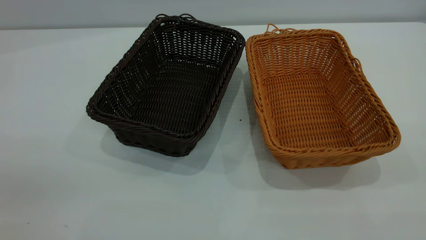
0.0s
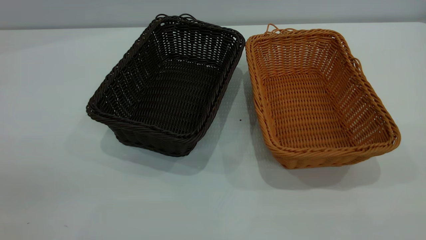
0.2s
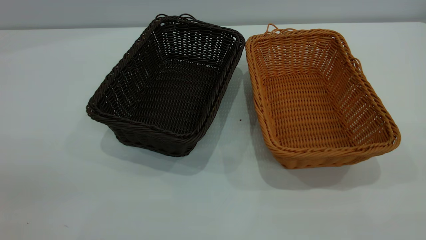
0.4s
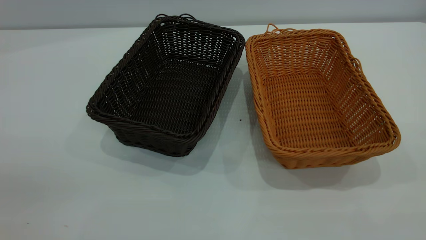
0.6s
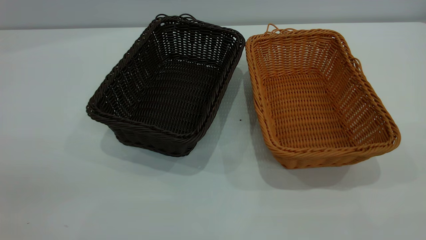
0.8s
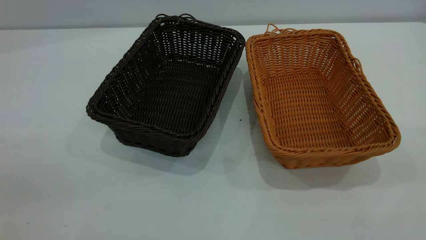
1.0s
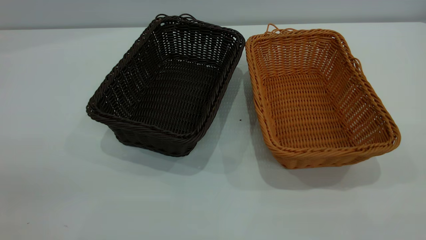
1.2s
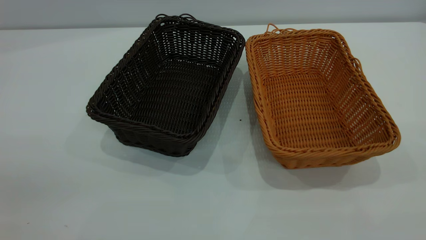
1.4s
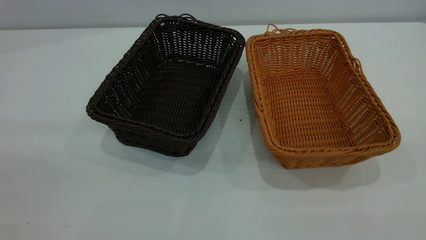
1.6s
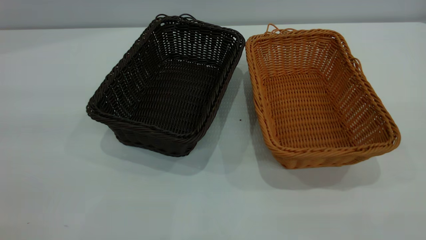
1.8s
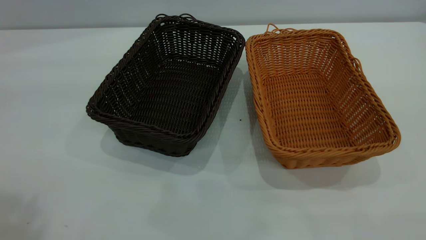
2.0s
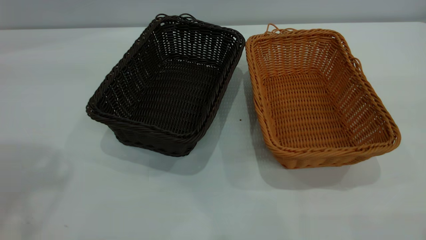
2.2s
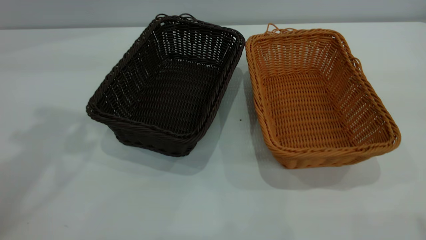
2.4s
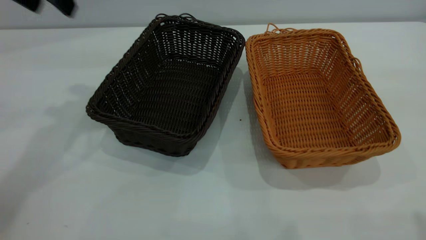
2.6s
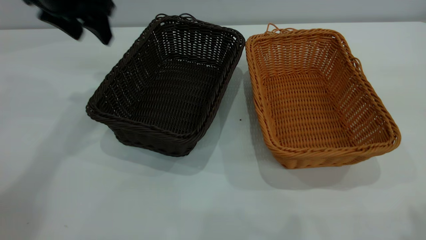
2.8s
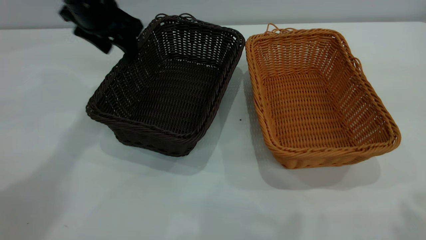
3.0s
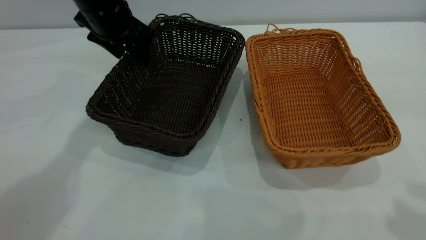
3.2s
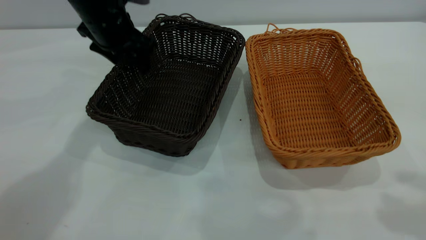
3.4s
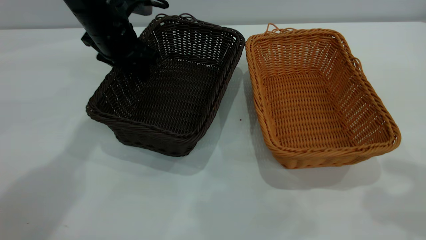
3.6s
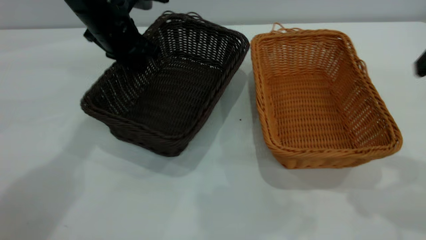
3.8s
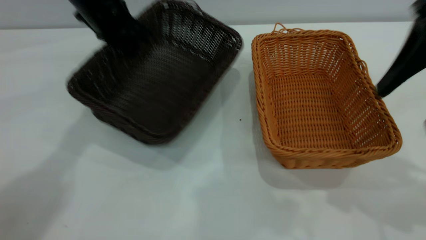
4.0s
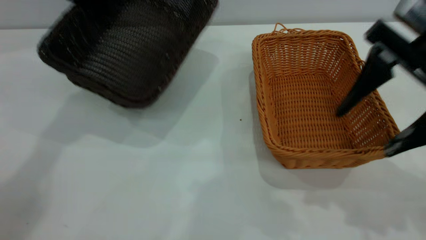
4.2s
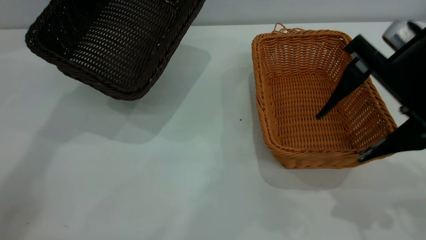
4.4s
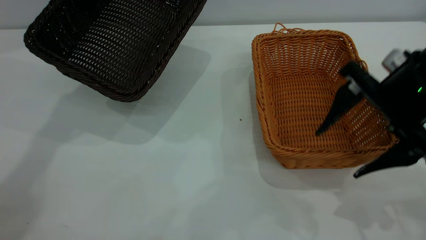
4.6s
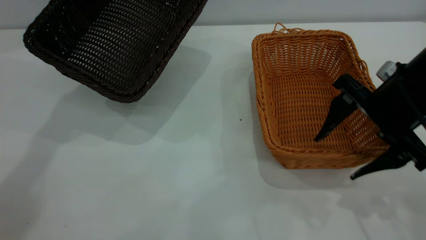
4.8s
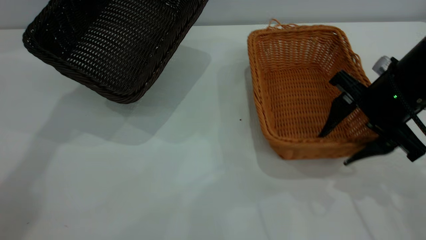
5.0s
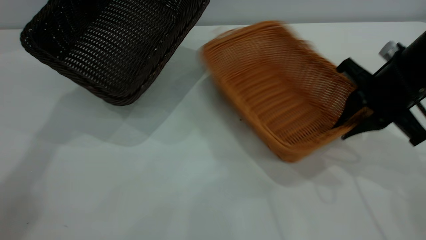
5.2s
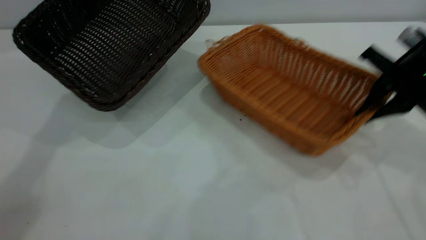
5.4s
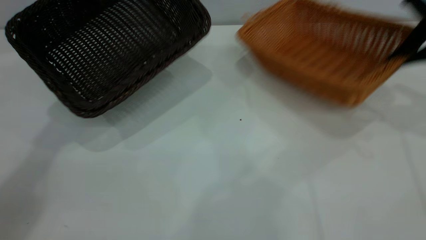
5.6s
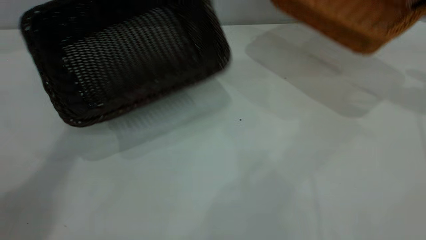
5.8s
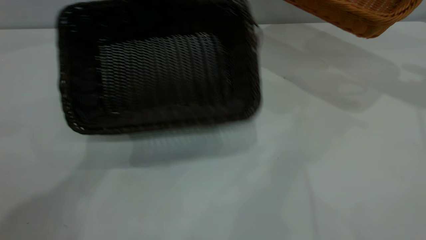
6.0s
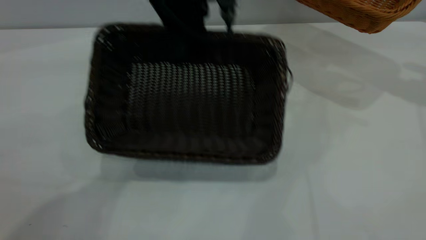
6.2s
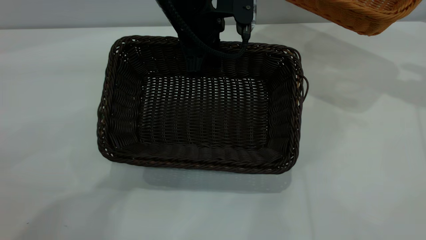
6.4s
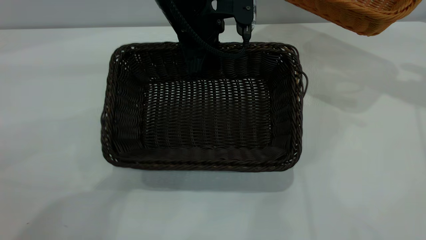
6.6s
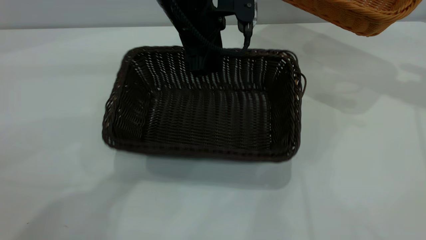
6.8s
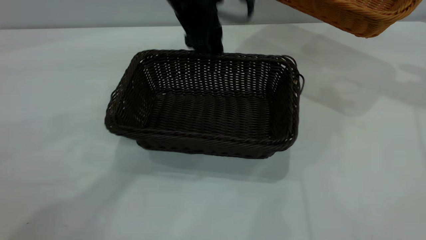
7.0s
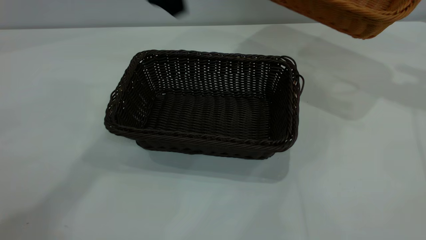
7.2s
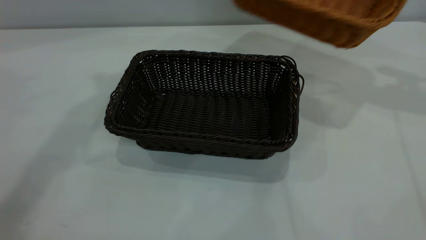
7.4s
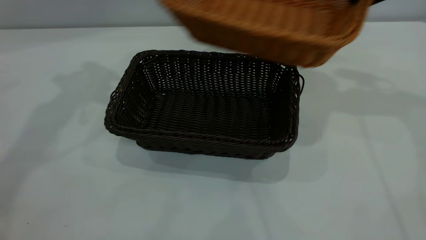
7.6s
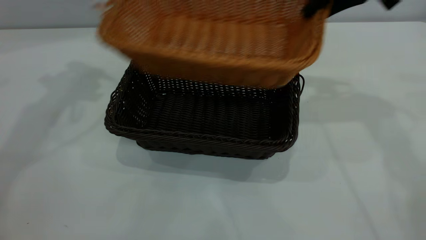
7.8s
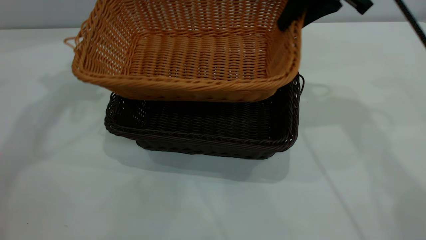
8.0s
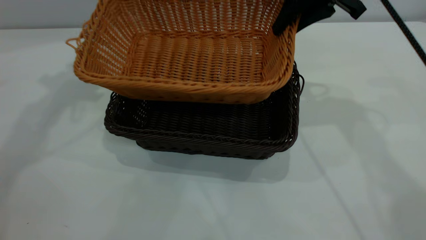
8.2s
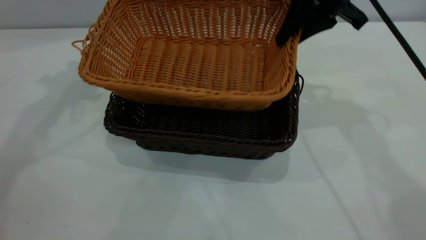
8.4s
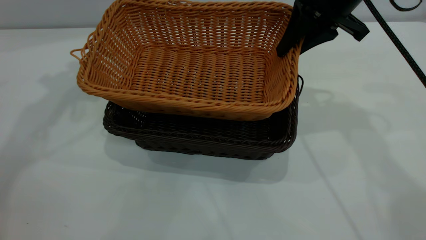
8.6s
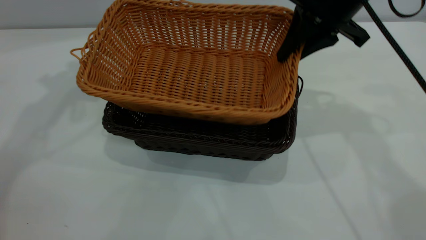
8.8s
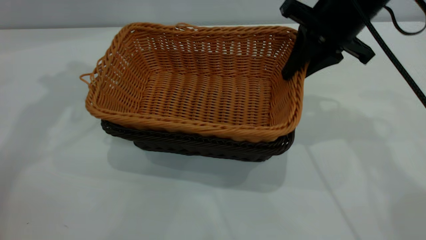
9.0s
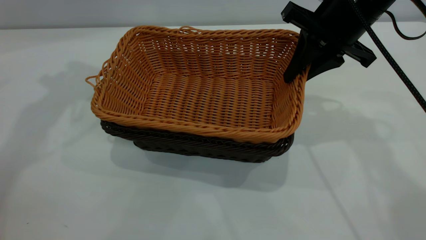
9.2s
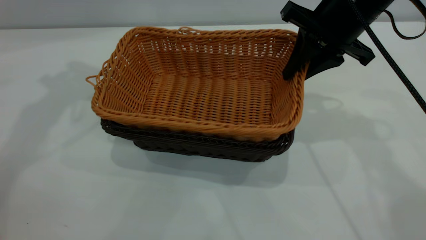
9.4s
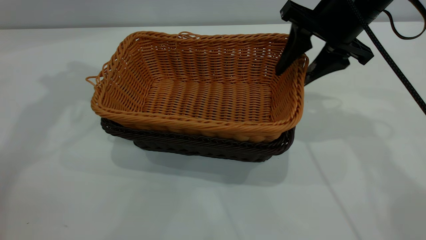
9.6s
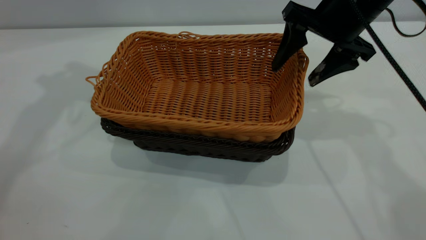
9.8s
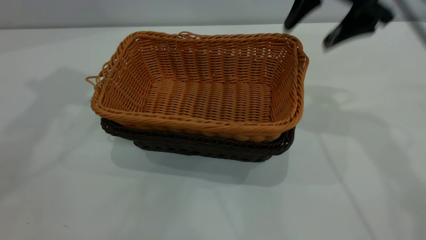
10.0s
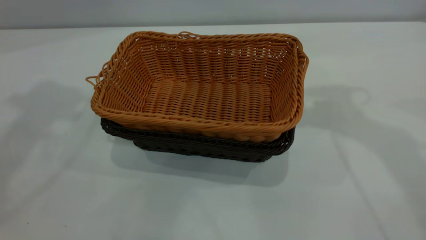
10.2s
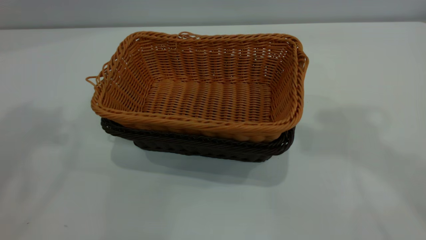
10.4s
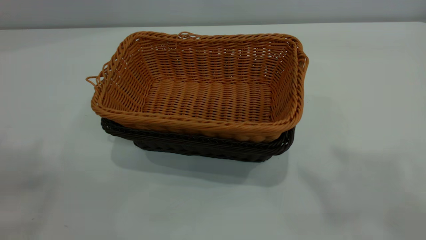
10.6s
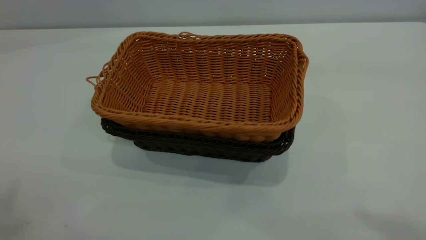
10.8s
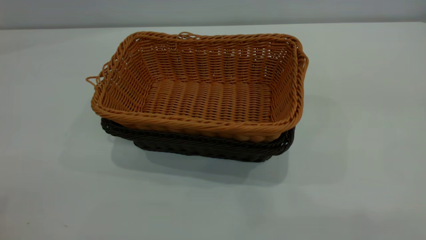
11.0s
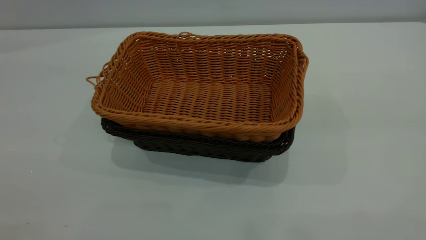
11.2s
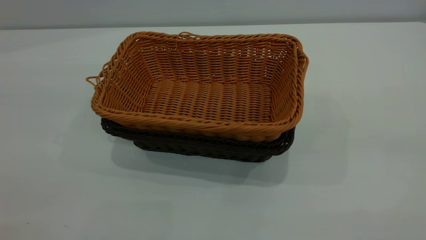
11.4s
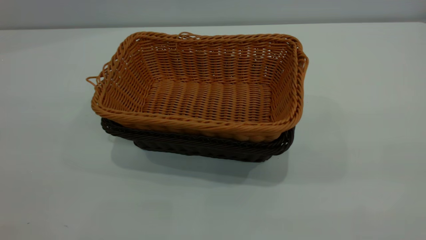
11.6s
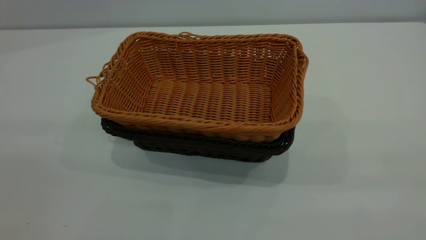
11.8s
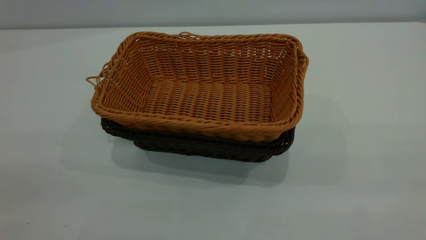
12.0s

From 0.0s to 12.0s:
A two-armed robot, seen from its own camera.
Task of the whole recording: the left gripper grasp the black basket and place it in the center of the table, the right gripper grasp the brown basket and place it inside the black one.
Step, from 0.0s to 5.6s: Pick up the light basket with the right gripper.
Step, from 5.8s to 7.0s: Move the dark basket to the center of view.
Step, from 7.2s to 9.8s: Place the light basket on the dark basket.
From 1.6s to 3.0s: The left gripper shifts roughly 50 cm forward and downward.
From 3.0s to 4.4s: The left gripper moves upward and to the left, some 10 cm, and closes; the right gripper travels downward and forward by approximately 20 cm.
From 4.4s to 6.0s: The right gripper travels forward, to the right and upward by roughly 25 cm, and closes; the left gripper shifts roughly 15 cm to the right.
From 6.0s to 7.6s: The right gripper goes approximately 15 cm to the left; the left gripper moves to the left and upward, some 20 cm, and opens up.
From 7.6s to 9.0s: The right gripper moves to the left and downward, roughly 10 cm.
From 9.0s to 10.4s: The right gripper goes about 25 cm upward, and opens up, while the left gripper goes about 25 cm upward and backward.

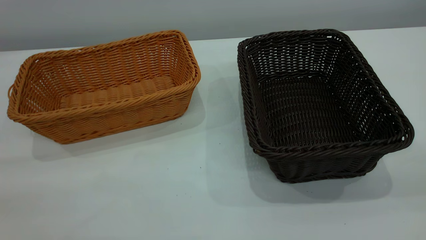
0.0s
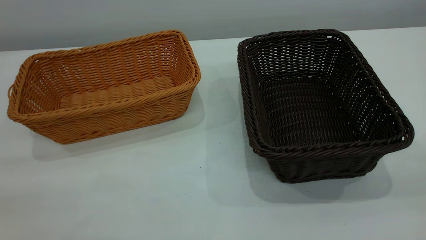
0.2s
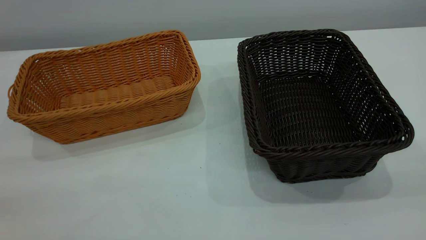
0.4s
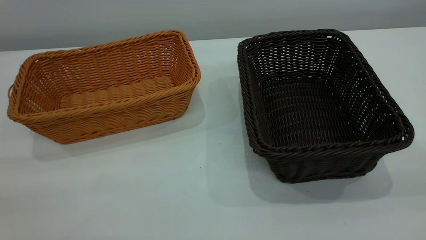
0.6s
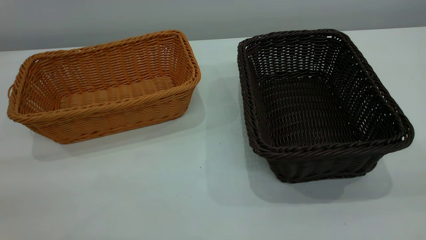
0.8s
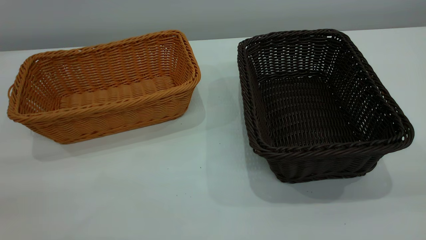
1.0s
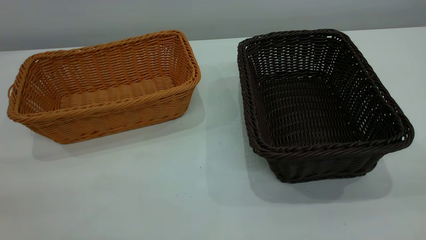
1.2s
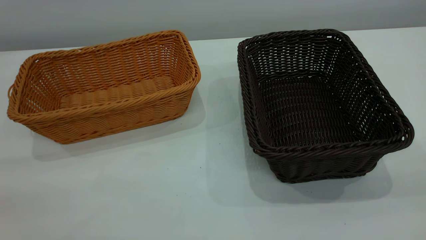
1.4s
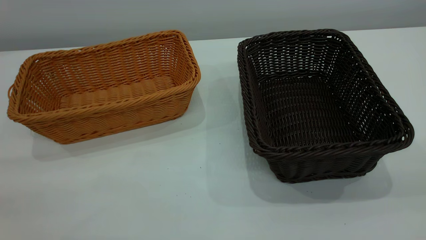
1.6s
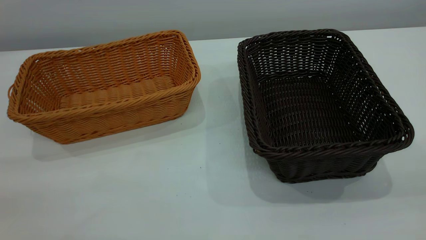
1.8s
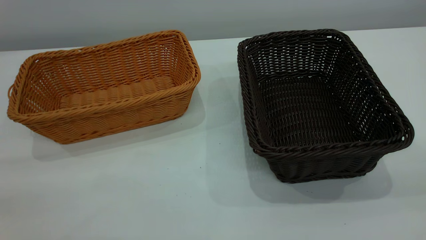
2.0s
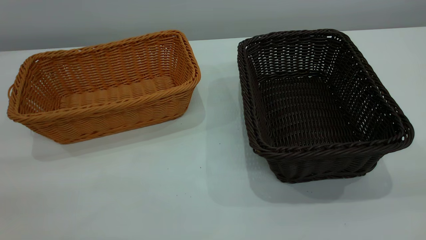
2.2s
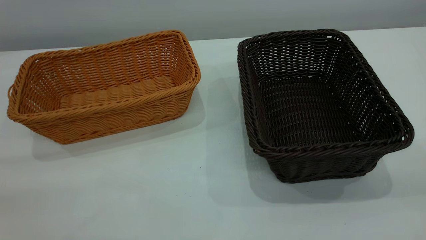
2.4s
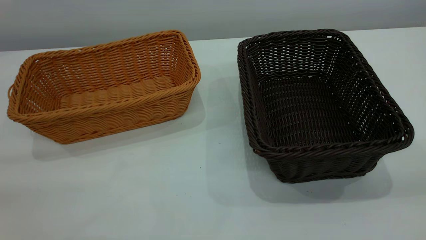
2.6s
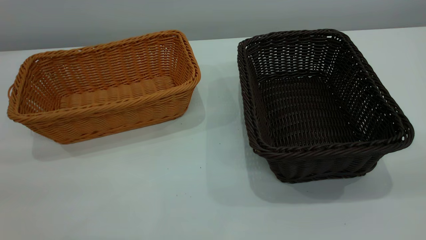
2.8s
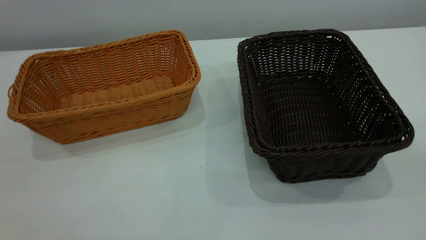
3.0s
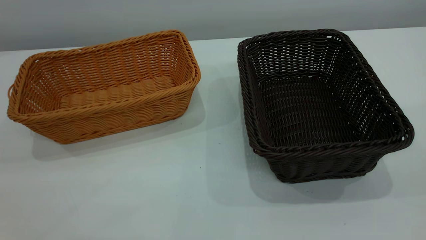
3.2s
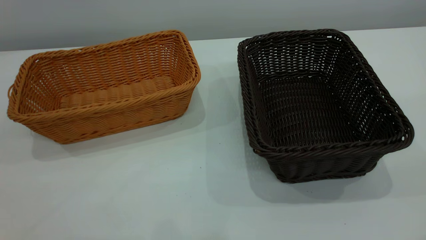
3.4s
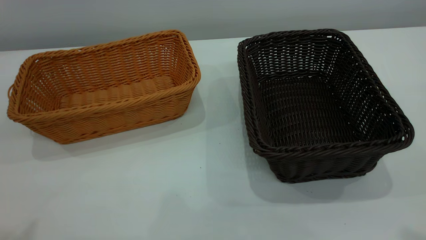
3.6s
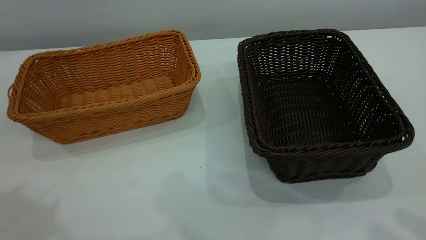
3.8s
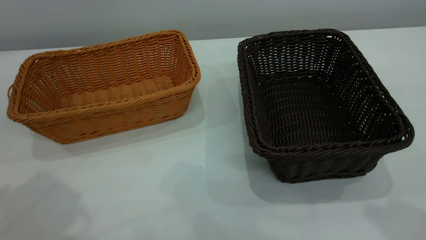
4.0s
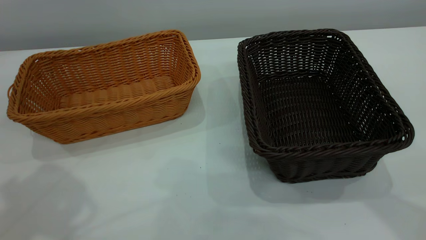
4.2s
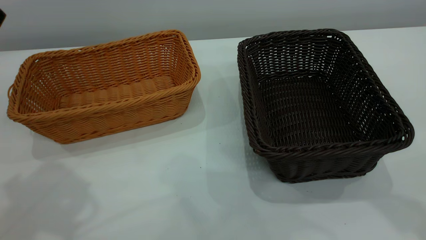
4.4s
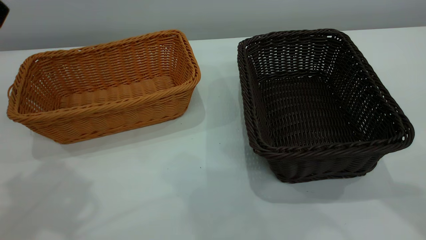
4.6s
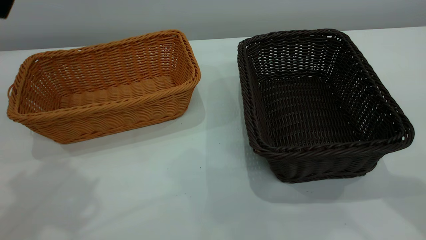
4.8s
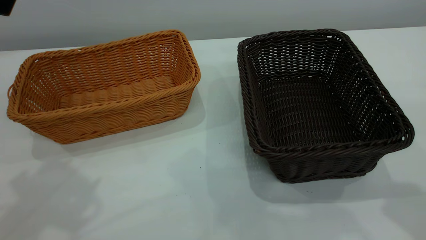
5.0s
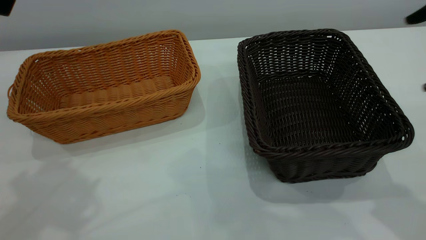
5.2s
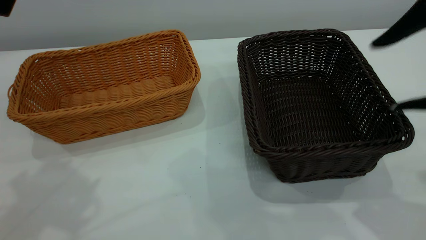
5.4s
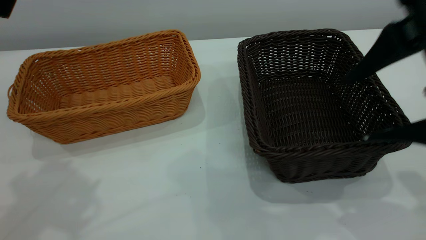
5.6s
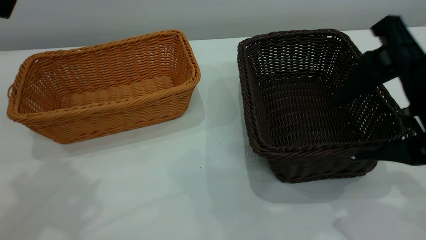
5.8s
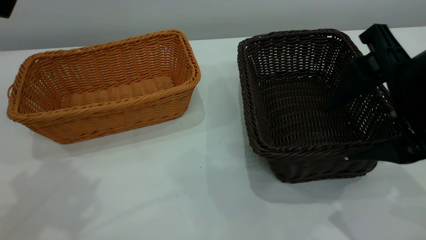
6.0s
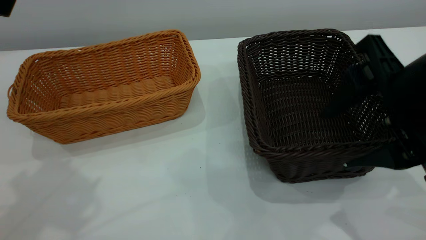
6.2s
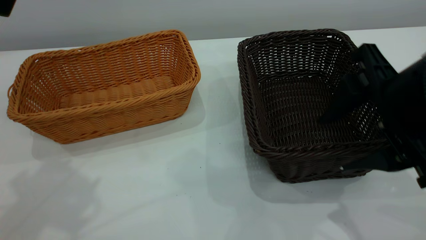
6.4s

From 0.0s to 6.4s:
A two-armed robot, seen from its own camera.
Task of the whole recording: the left gripper grasp the brown basket and place it in the center of the table, the right gripper grasp the black basket and place it inside the brown one.
From 0.0s to 1.6s: Neither gripper changes place.
From 4.8s to 6.4s: The right gripper heads downward and to the left, covering roughly 15 cm.
